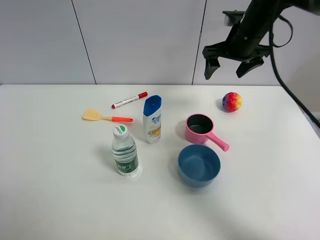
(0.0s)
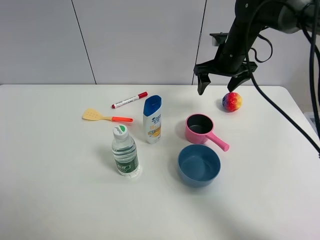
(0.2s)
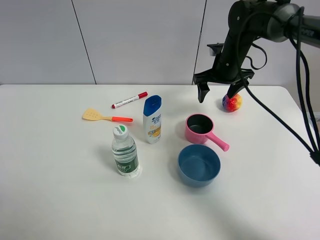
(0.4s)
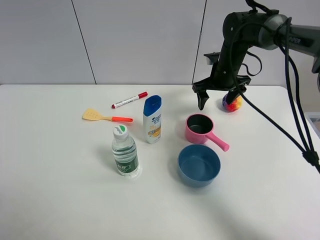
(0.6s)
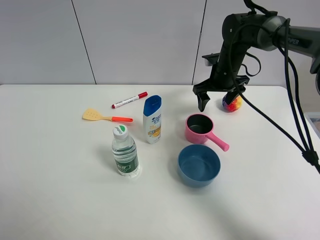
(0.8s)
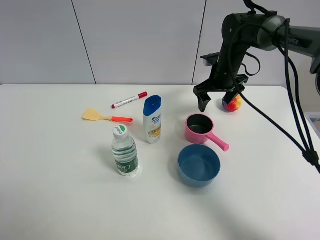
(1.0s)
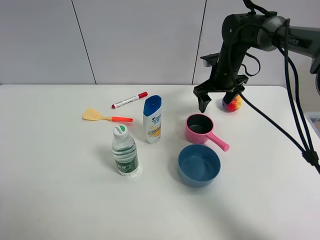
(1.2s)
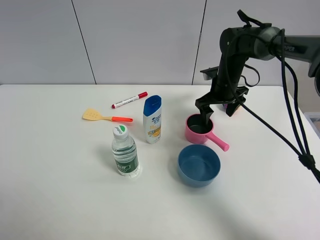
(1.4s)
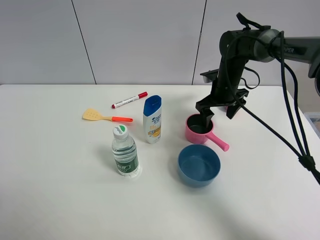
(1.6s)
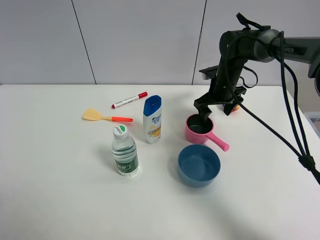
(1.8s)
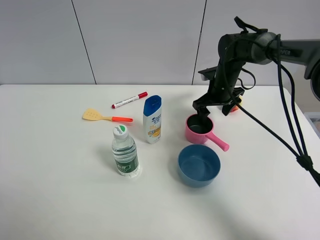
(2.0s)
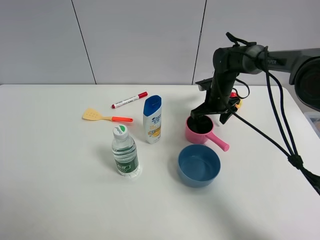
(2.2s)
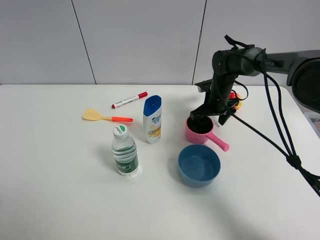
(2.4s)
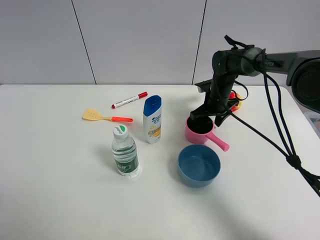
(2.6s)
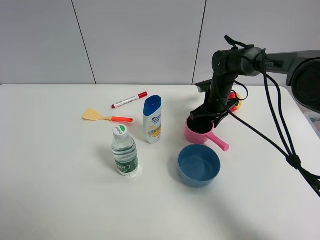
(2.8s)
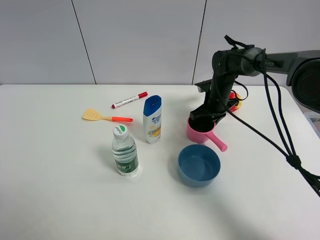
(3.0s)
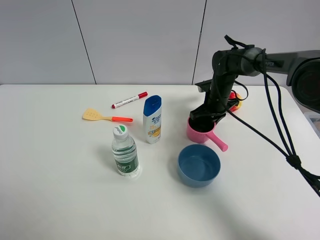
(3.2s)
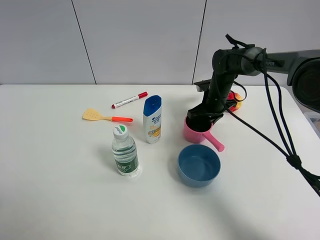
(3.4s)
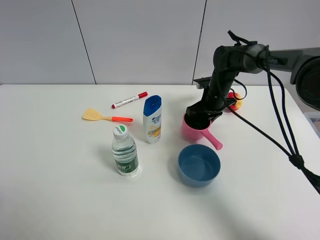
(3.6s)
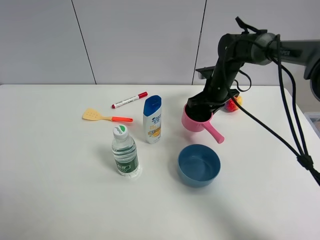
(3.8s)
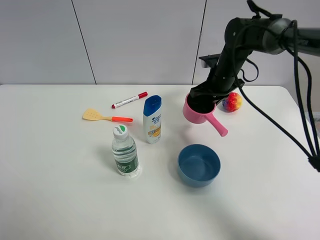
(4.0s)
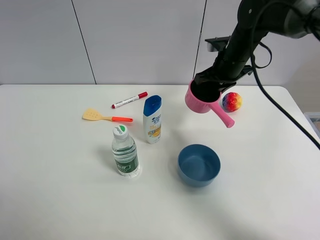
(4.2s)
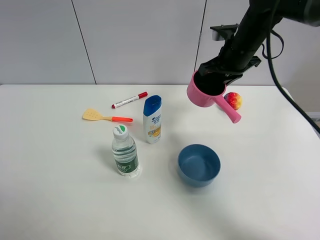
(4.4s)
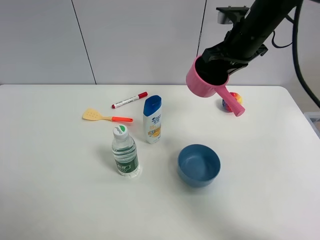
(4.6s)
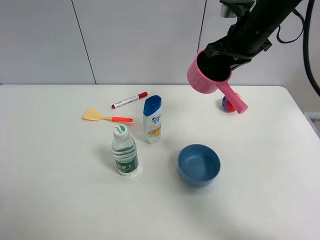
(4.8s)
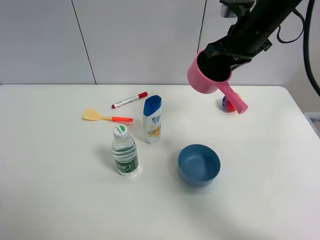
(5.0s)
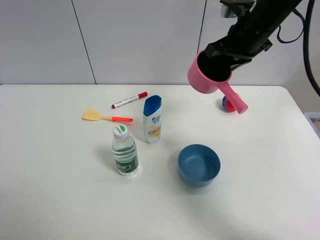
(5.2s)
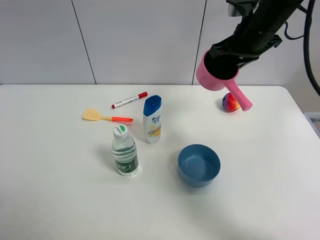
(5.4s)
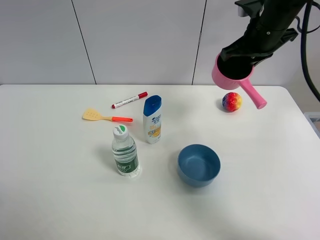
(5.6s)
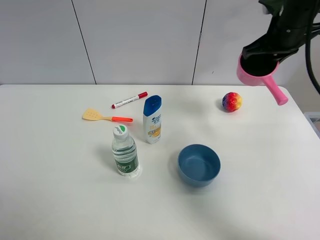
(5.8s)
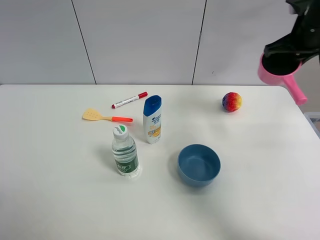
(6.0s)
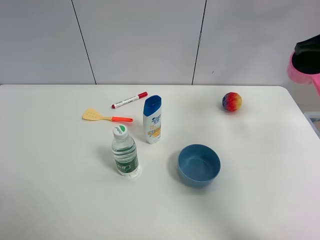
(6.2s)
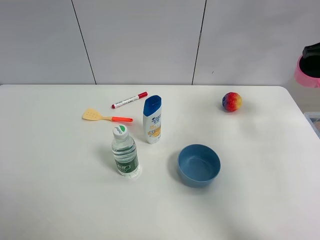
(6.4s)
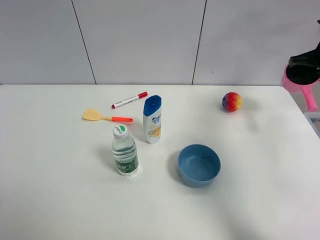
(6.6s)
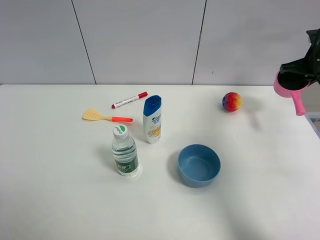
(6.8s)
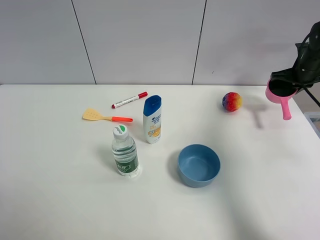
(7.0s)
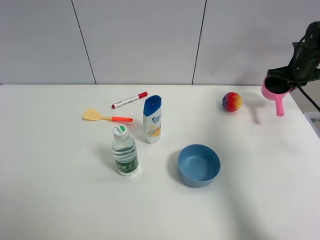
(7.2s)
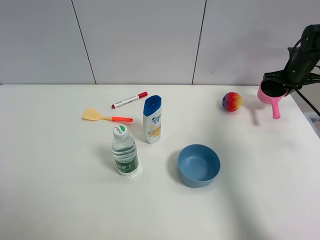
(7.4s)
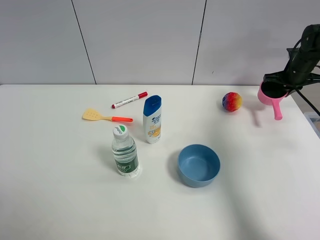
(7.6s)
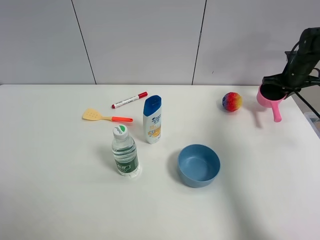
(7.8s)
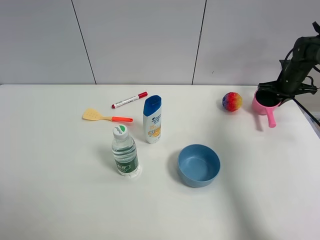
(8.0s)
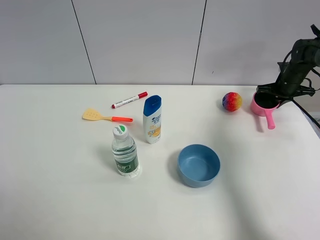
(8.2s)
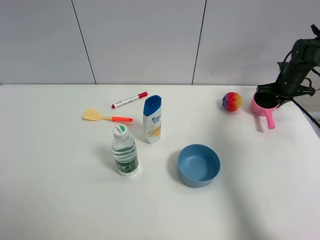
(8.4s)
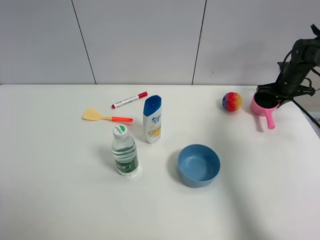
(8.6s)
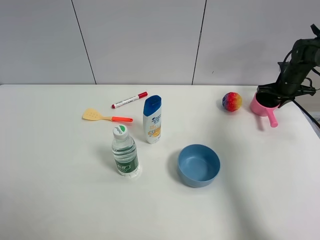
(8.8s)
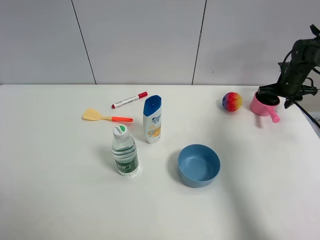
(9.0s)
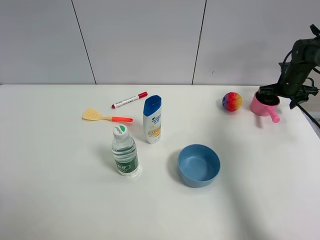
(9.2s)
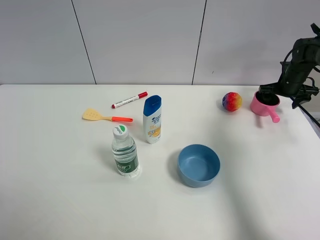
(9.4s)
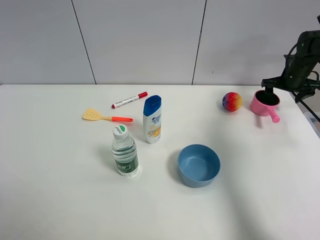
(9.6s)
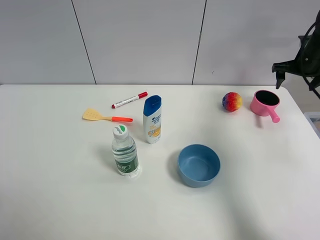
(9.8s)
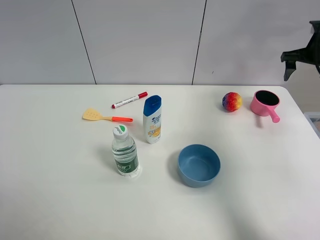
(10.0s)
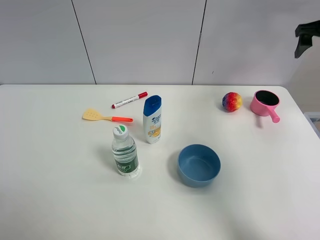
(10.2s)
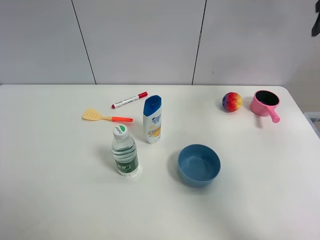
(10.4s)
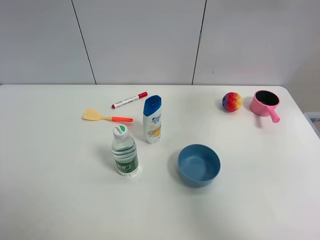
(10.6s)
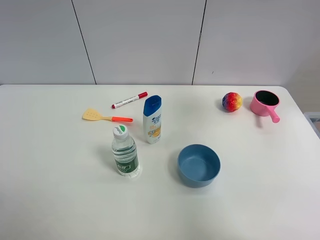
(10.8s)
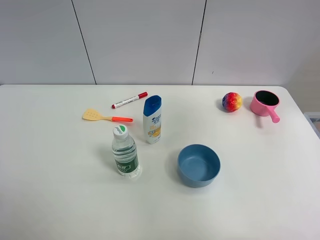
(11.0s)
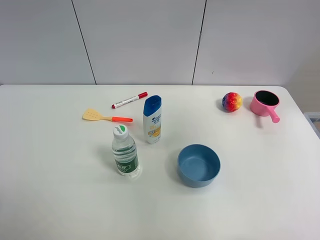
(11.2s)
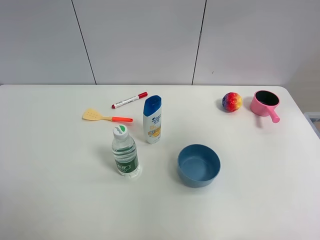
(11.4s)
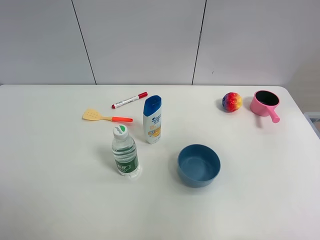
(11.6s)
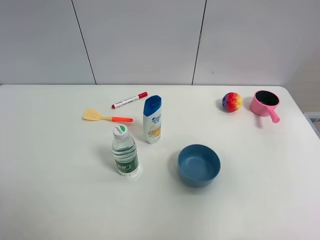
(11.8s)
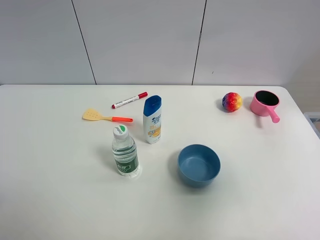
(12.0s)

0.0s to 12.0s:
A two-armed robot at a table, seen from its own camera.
Task of the whole recording: the gripper move the object.
Step, 0.0s to 2.8s: Grasp the pink pot with the right gripper.
Step, 3.0s to 9.6s: Place the pink pot on the table with the right gripper.
0.0s to 1.6s: The right gripper heads downward, covering approximately 10 cm.
1.6s to 3.0s: The right gripper goes approximately 5 cm downward, and closes its fingers.
3.0s to 4.4s: The right gripper is displaced upward by about 15 cm.
4.4s to 6.0s: The right gripper heads to the right, covering about 15 cm.
6.0s to 7.6s: The right gripper is displaced downward, forward and to the right by about 20 cm.
7.6s to 9.0s: The right gripper opens its fingers.
9.0s to 10.4s: The right gripper moves upward and backward, some 30 cm.
10.4s to 12.0s: The right gripper moves backward, some 35 cm.

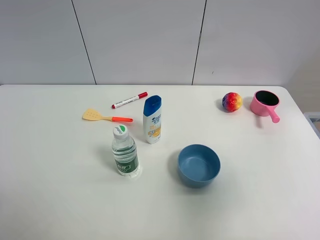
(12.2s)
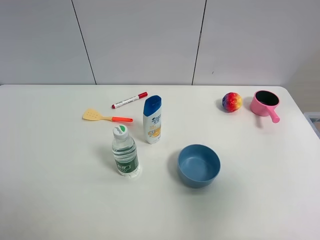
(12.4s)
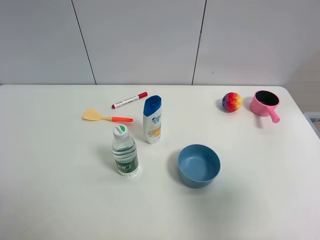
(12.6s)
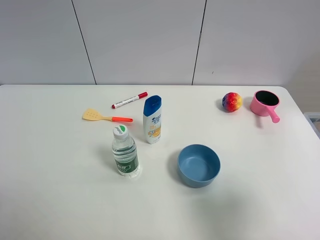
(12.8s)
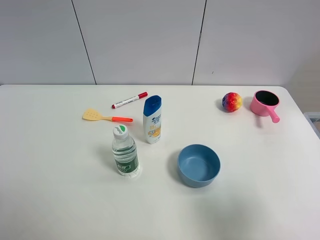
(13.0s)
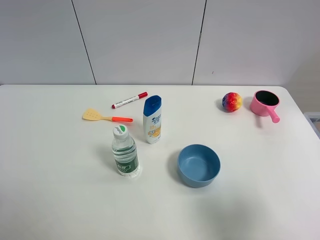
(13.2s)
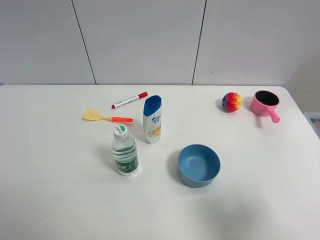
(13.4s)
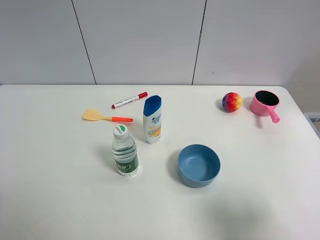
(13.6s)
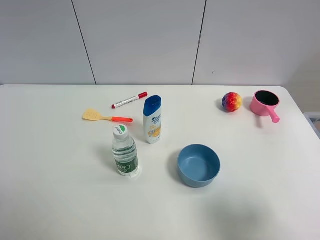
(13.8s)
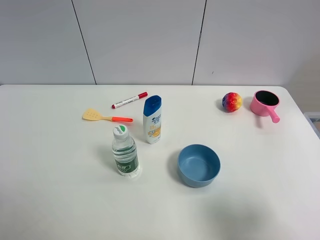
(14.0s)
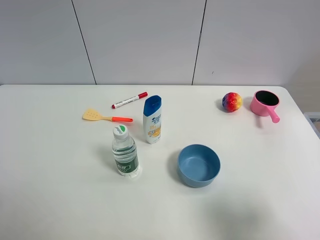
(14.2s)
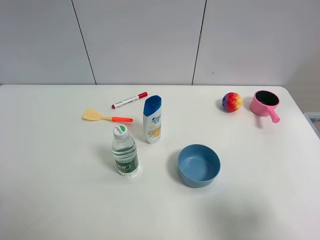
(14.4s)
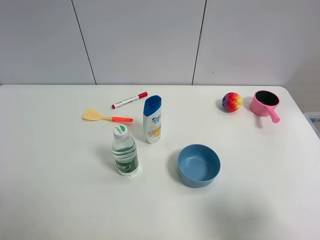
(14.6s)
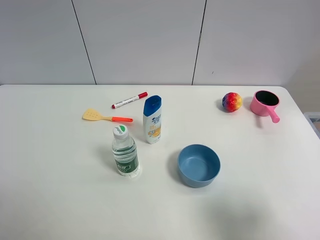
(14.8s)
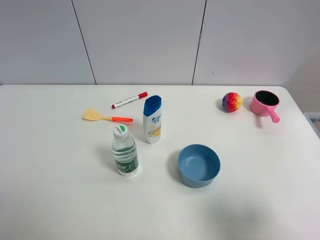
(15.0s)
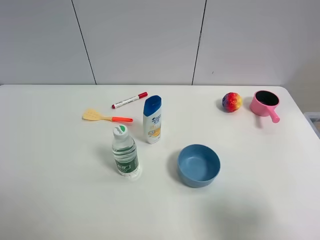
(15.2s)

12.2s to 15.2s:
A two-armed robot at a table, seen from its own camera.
Task of the whole recording: the gripper move the object.
12.2s to 13.8s: The right gripper travels downward by some 10 cm.
13.8s to 15.2s: The two grippers keep their place.

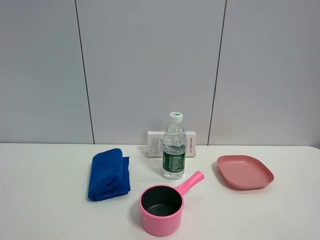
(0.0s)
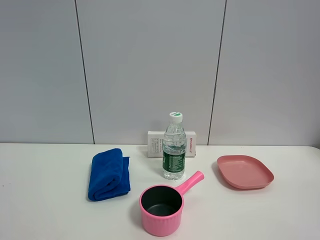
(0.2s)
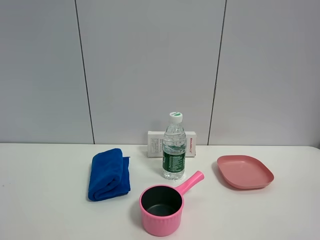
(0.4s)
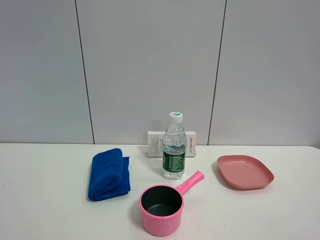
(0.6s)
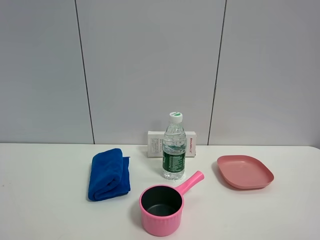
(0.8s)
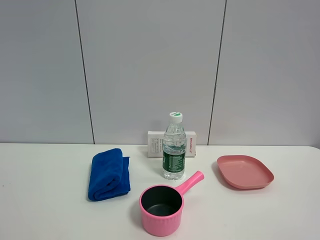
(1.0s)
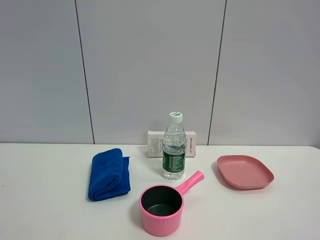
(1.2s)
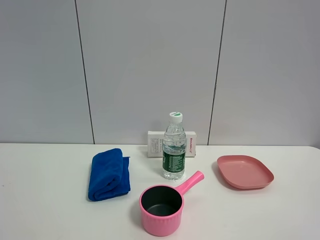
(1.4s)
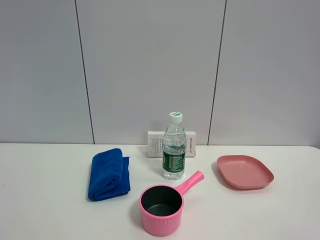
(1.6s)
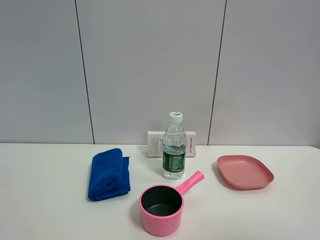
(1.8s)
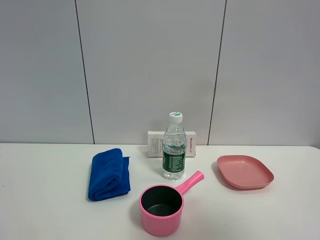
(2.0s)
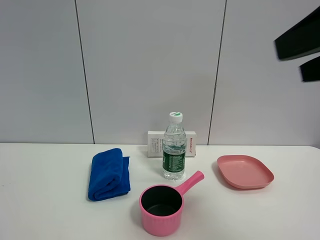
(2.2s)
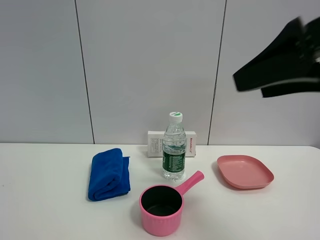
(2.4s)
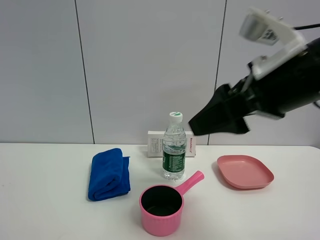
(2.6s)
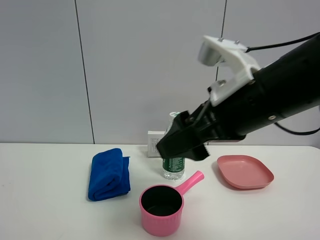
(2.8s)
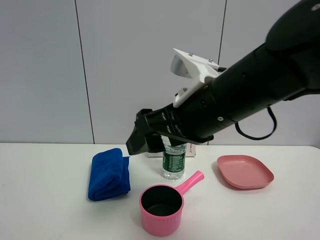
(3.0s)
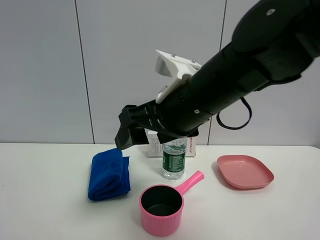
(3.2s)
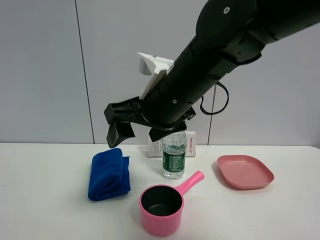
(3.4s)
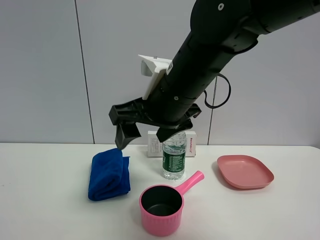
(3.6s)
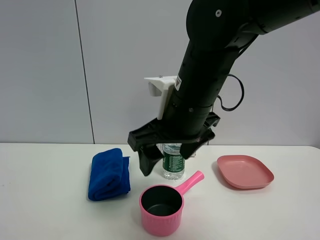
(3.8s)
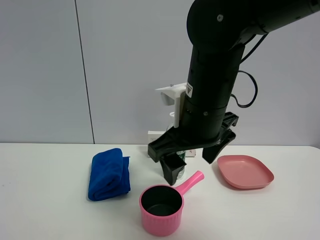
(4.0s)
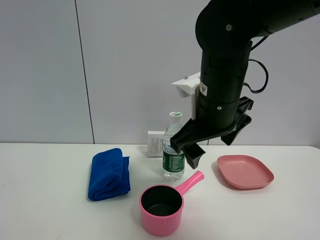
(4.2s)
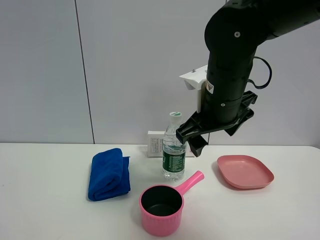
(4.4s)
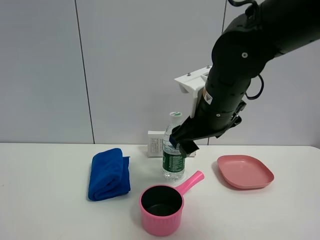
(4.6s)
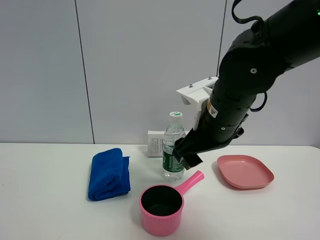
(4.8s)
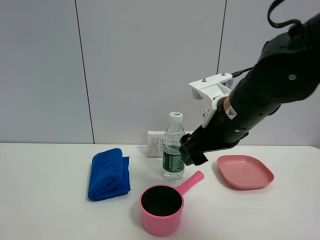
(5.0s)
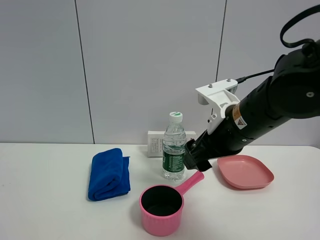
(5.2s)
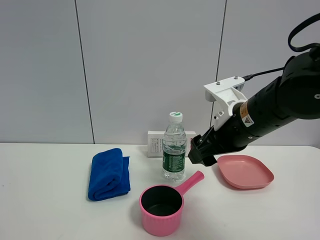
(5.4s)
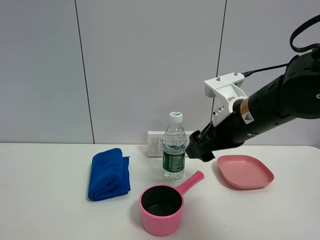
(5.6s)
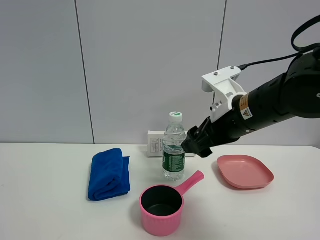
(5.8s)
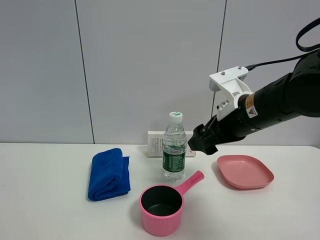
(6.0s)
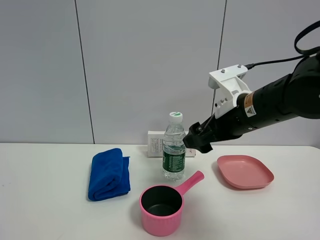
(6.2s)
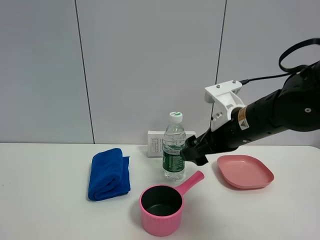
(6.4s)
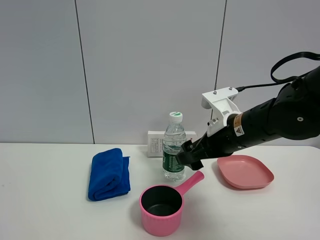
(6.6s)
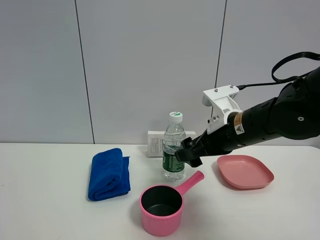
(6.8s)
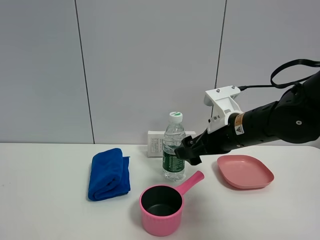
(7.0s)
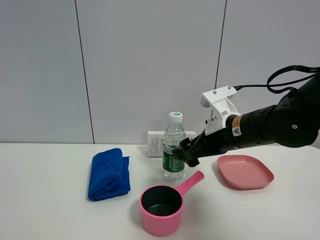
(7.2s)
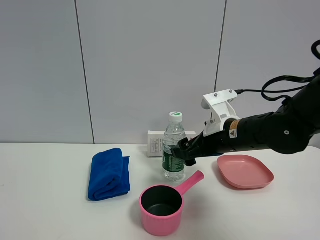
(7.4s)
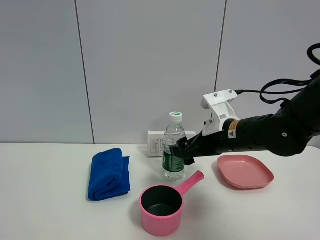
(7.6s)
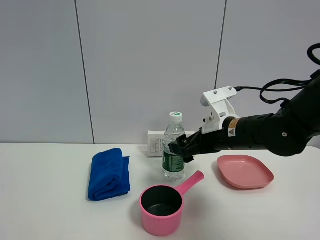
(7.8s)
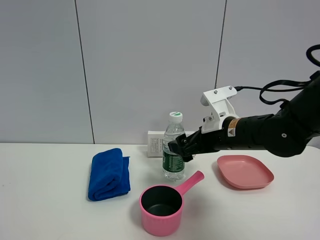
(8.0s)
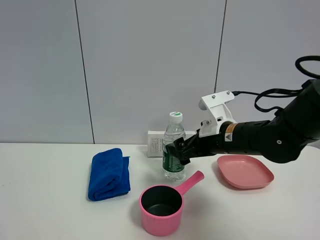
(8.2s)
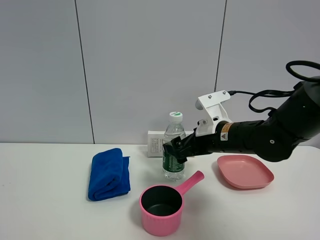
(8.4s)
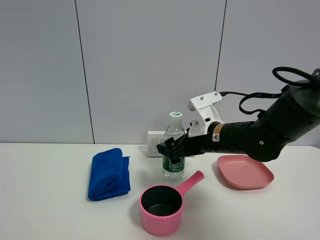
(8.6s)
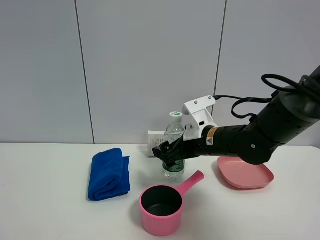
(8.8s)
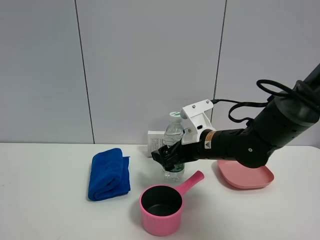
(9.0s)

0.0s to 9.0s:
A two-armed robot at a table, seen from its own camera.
Task of the whole recording: the gripper move the object.
1.6s to 3.0s: The right gripper heads forward and to the left, covering about 35 cm.
3.0s to 4.4s: The right gripper shifts about 5 cm forward.
4.4s to 6.0s: The right gripper shifts approximately 5 cm to the right.
6.0s to 7.6s: The right gripper shifts about 5 cm downward, and opens.
7.6s to 9.0s: The right gripper ends up about 5 cm from where it was.
